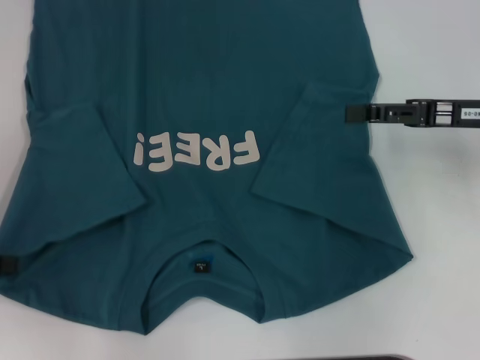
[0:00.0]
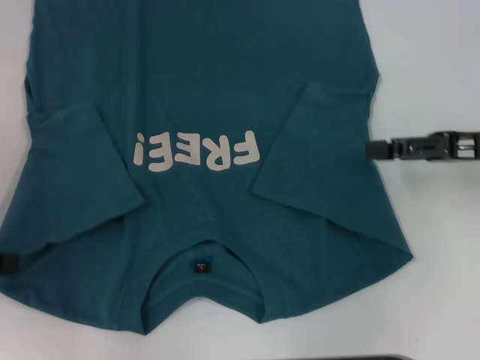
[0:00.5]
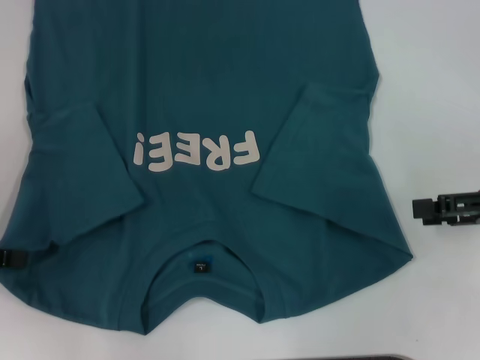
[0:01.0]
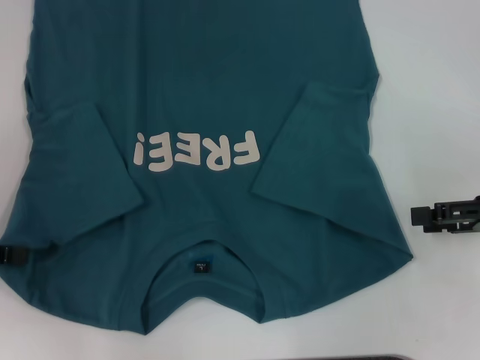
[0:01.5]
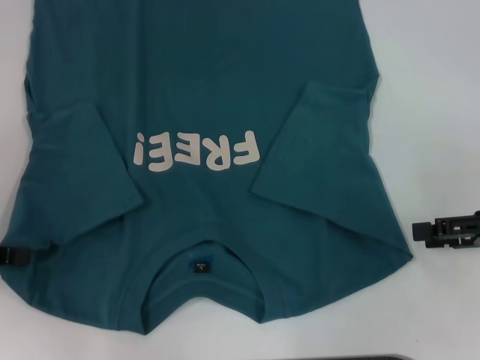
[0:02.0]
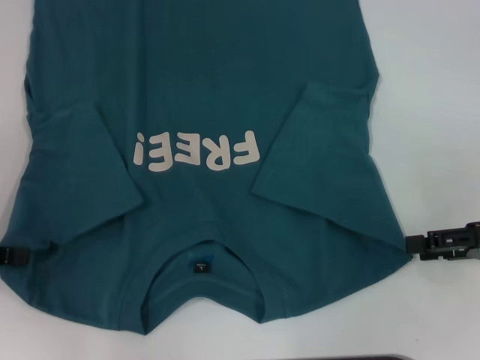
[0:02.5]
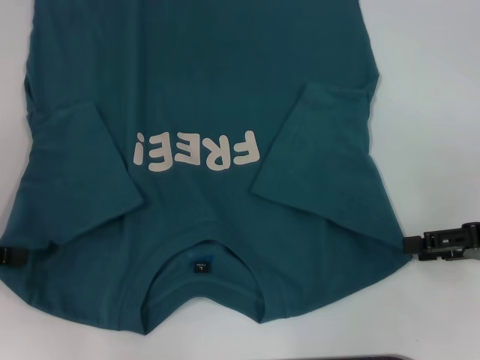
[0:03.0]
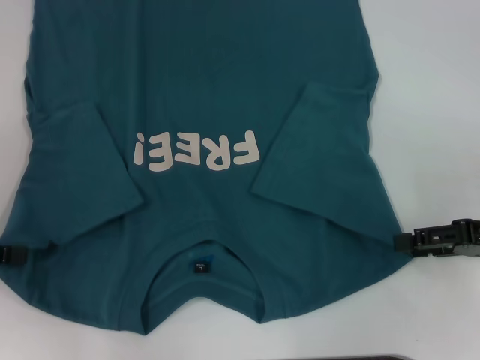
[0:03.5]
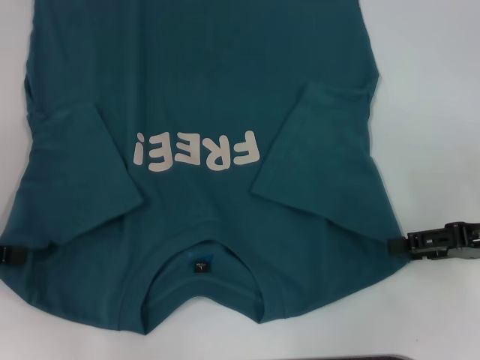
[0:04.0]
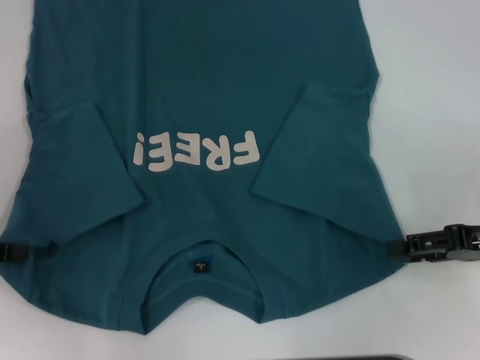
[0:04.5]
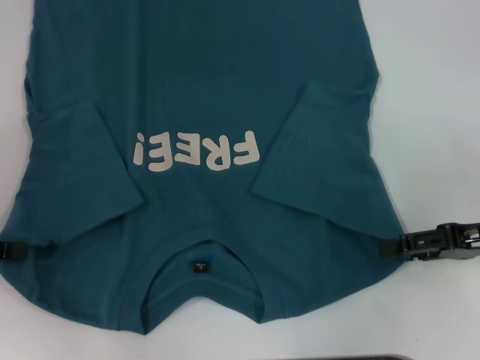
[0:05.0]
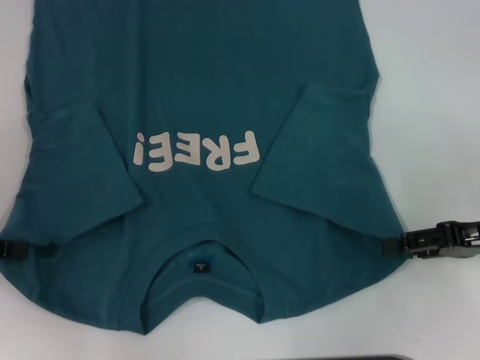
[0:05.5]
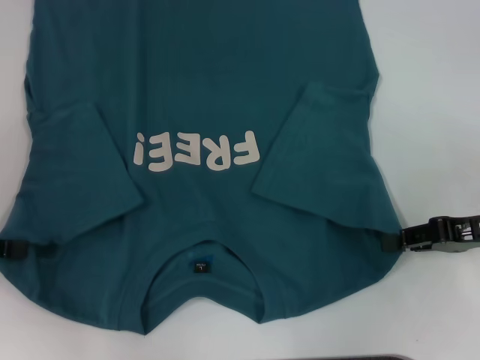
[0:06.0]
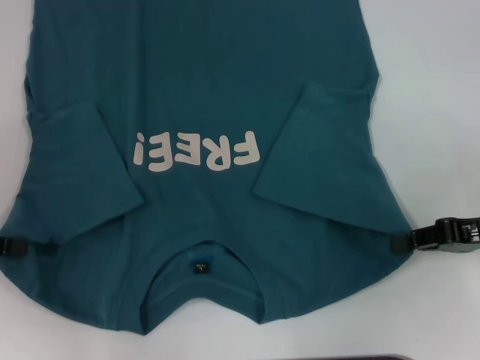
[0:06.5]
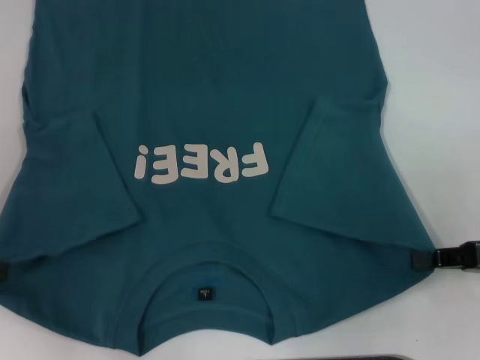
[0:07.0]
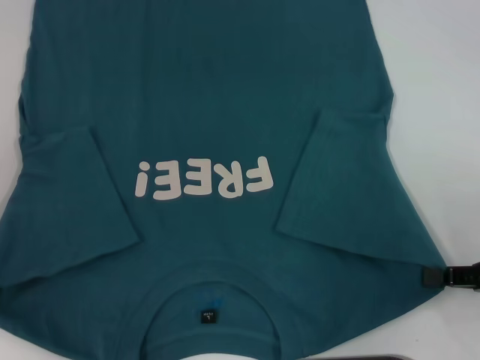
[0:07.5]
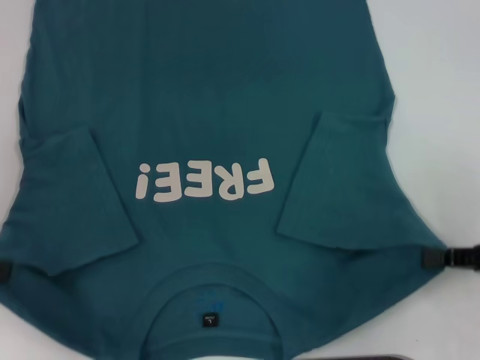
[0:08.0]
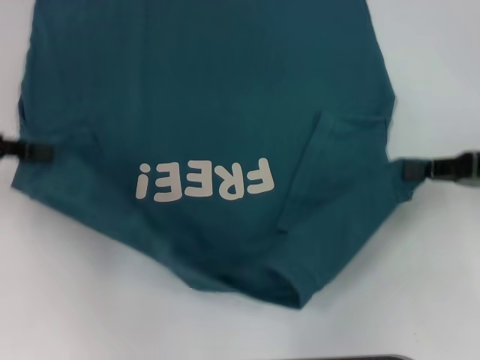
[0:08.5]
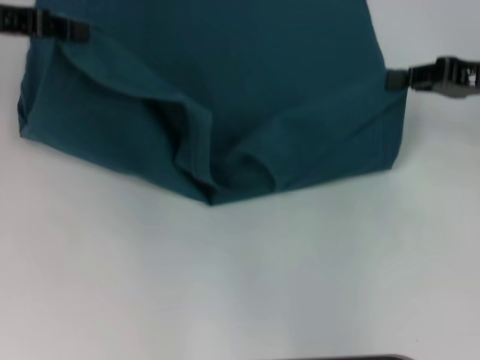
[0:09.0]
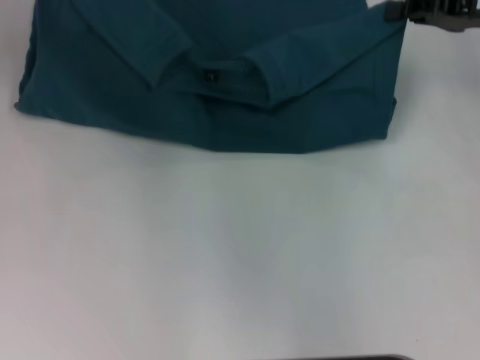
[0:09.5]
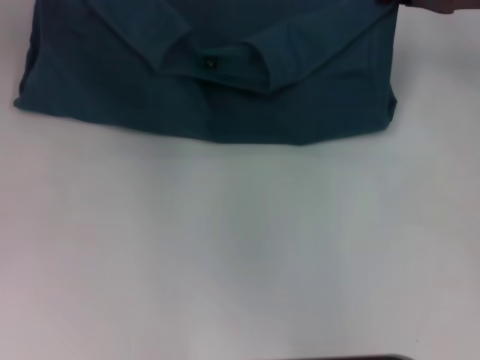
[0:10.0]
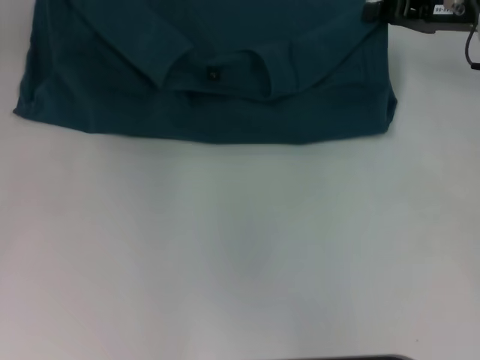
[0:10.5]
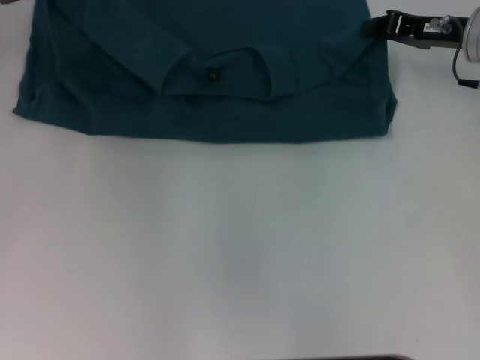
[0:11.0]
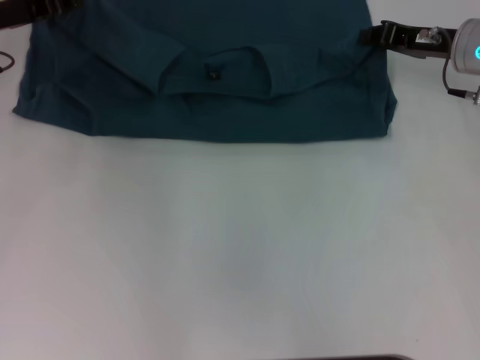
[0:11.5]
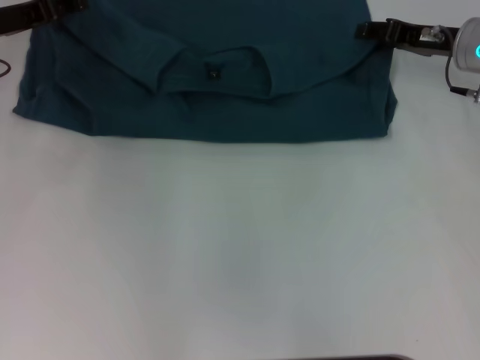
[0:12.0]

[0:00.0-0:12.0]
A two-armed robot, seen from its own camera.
Step, 0:00.0 to 0:06.5: Grab the bottom right corner with your right hand.
0:00.0 to 0:02.0: The right gripper is displaced backward and to the right by some 10 cm.
0:02.0 to 0:06.0: The grippers move only a little.
0:06.0 to 0:08.0: The right gripper moves backward, approximately 5 cm, and closes its fingers.
0:08.0 to 0:10.0: The left gripper goes about 25 cm forward, upward and to the right. Meanwhile the right gripper is displaced forward and upward by about 25 cm.
0:10.0 to 0:12.0: The two grippers go some 10 cm downward. The left gripper opens. Meanwhile the right gripper opens.

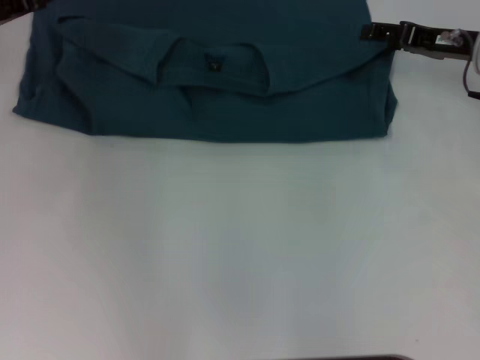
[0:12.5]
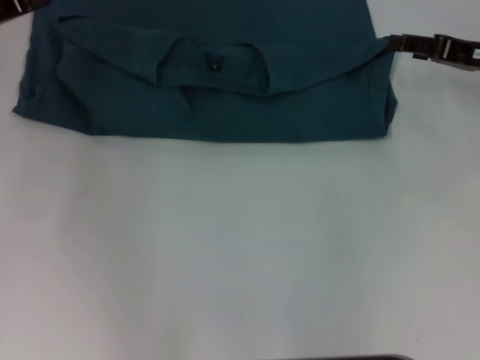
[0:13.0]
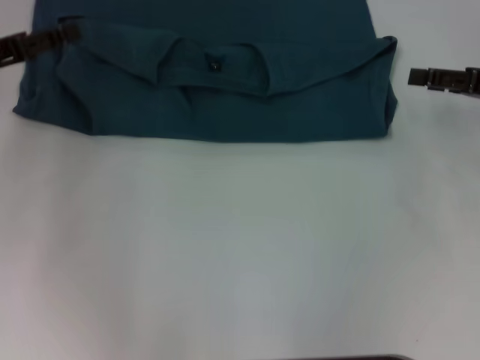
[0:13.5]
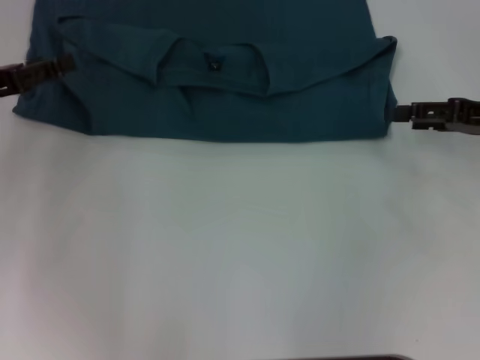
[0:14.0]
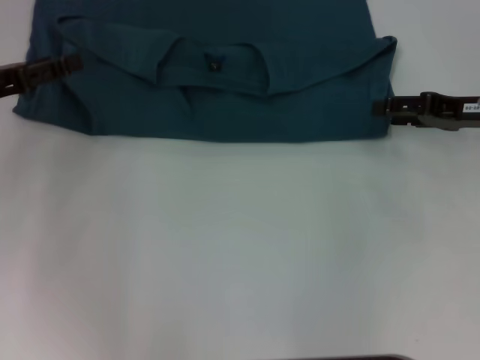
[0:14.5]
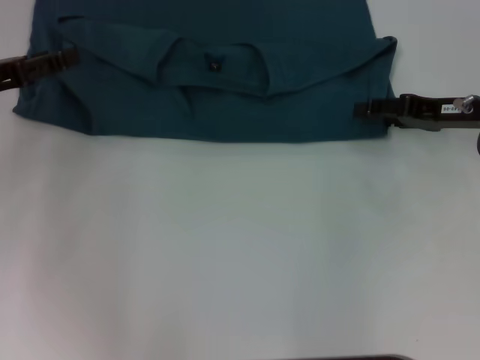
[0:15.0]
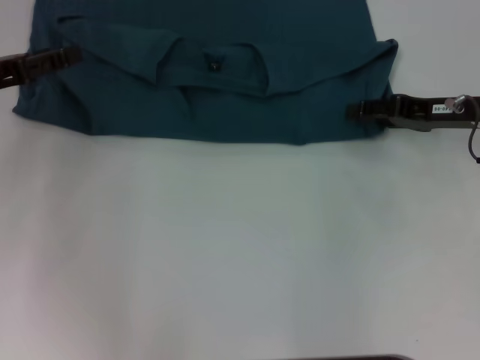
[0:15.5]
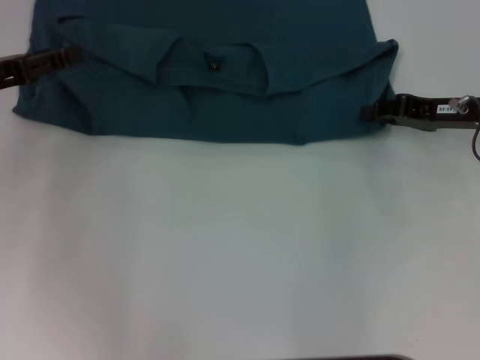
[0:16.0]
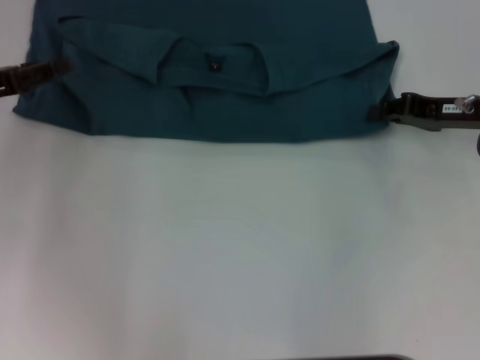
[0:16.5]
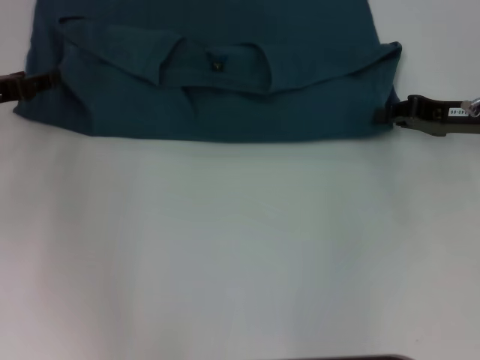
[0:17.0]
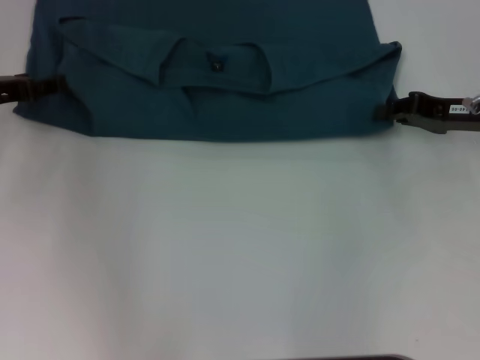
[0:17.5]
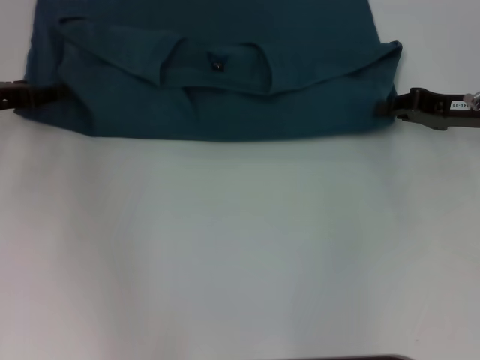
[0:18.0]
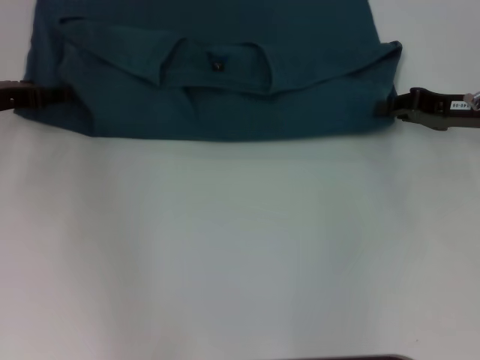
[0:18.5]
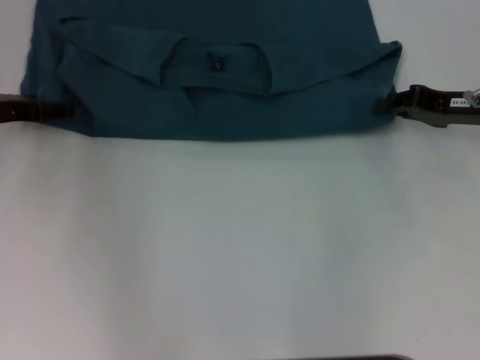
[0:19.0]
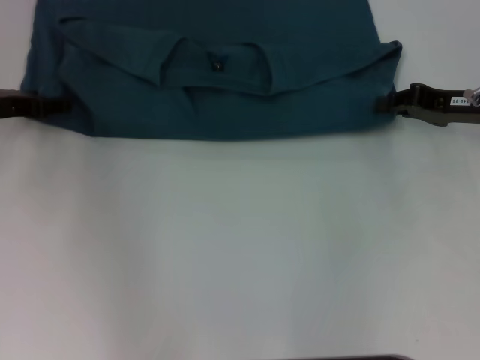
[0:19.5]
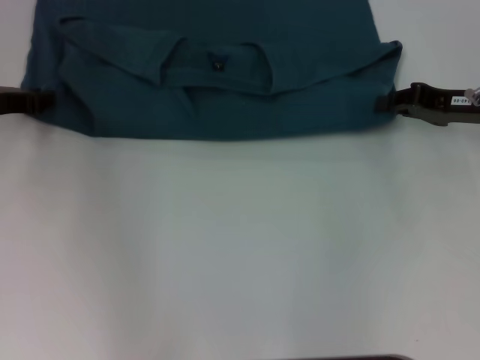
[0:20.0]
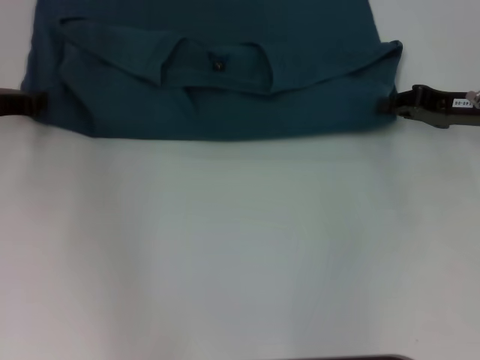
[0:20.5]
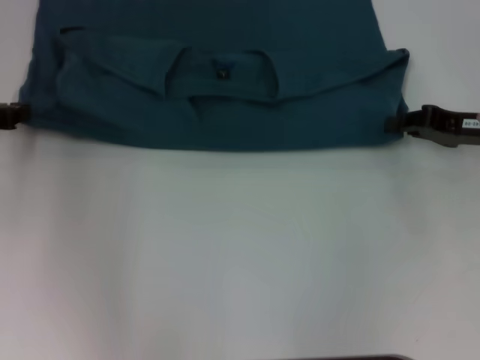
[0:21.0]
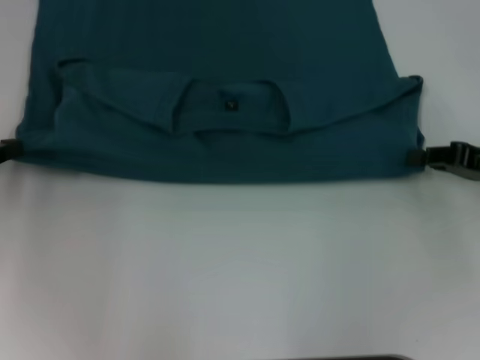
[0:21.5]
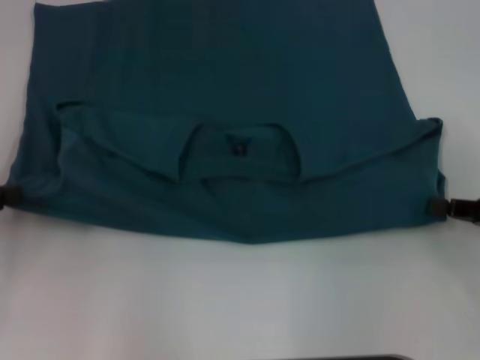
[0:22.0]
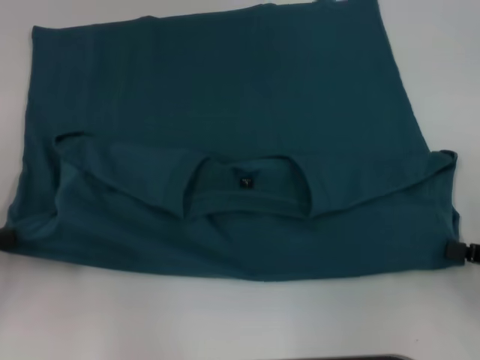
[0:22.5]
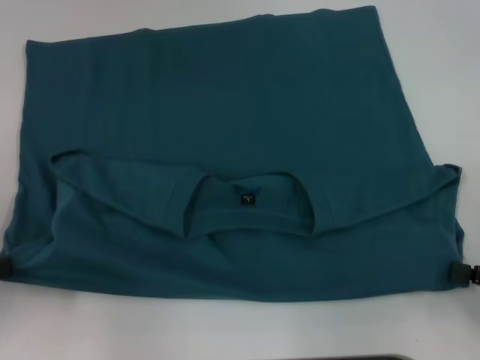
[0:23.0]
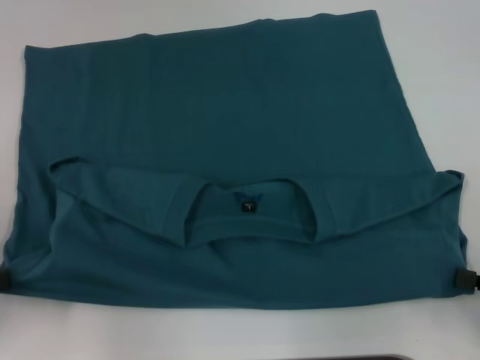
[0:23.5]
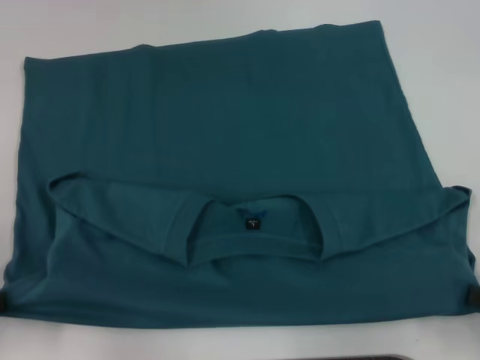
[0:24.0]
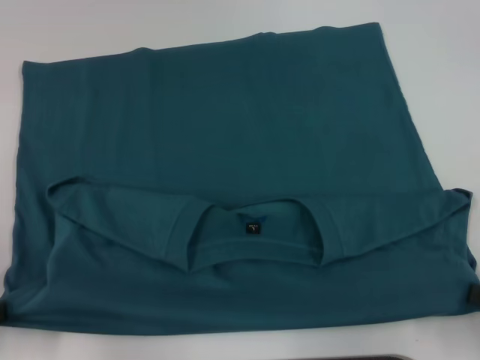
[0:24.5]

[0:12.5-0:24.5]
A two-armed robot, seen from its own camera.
Step, 0:13.0 to 0:24.0: Pull the clothes with your left hand.
Step, 0:13.0 to 0:24.0: Pull the clothes with your right hand.
0:12.5 to 0:14.5: The grippers both shift backward by about 5 cm.
0:14.5 to 0:16.5: The right gripper closes.
0:16.5 to 0:18.5: The left gripper changes place by roughly 5 cm.
0:20.5 to 0:22.5: The grippers both shift backward by approximately 15 cm.
0:22.5 to 0:24.5: Both grippers move backward, about 5 cm.

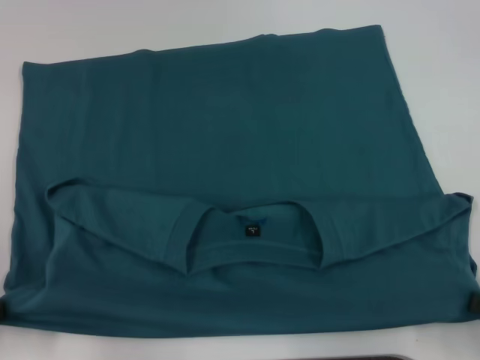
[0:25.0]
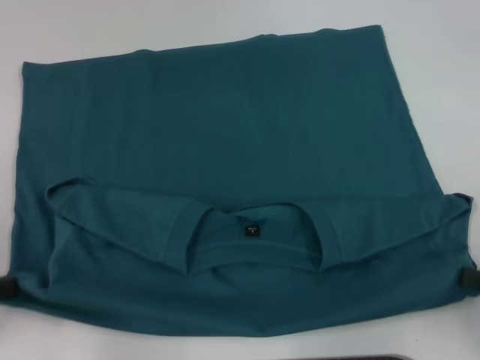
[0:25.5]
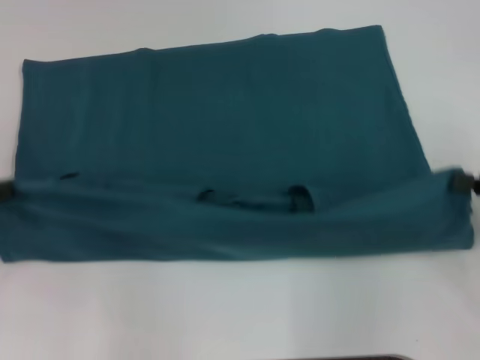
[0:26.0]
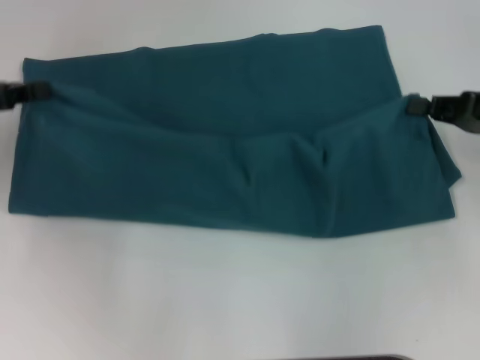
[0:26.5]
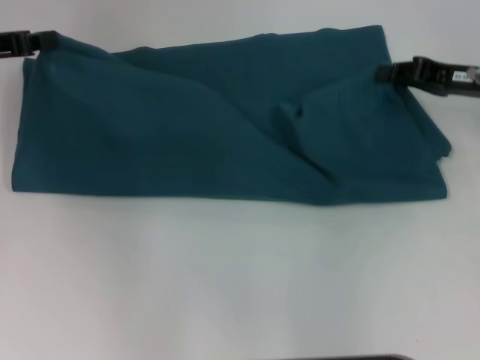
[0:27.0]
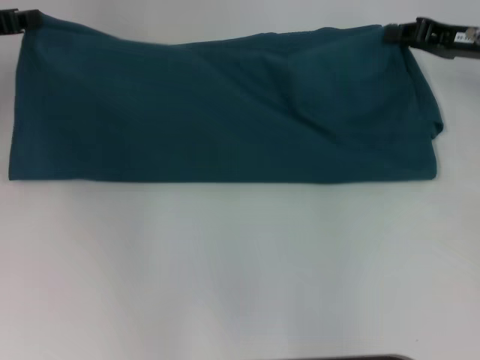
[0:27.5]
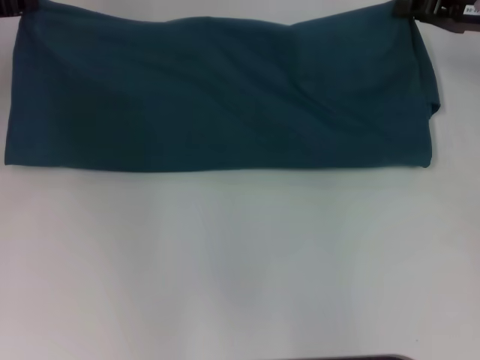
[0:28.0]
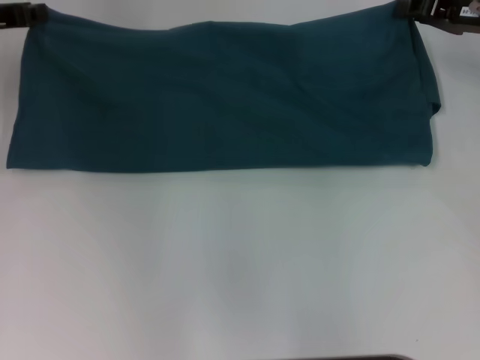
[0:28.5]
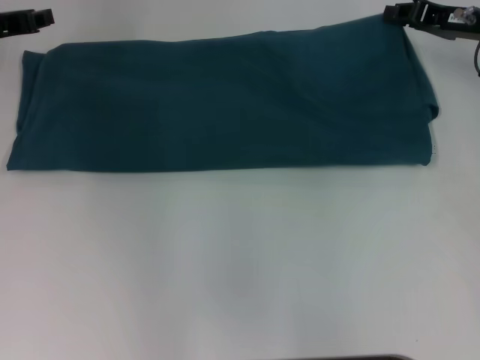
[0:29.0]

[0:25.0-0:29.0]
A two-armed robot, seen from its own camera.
0:25.0 to 0:27.0: The two grippers go about 25 cm forward.
0:27.0 to 0:29.0: The right gripper is displaced forward by roughly 5 cm.
